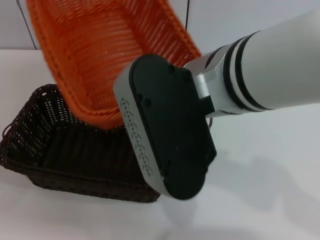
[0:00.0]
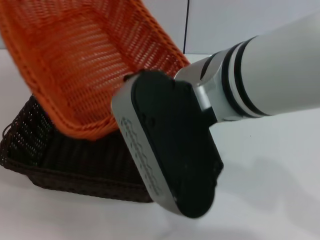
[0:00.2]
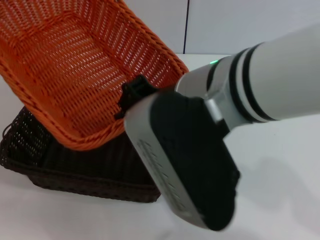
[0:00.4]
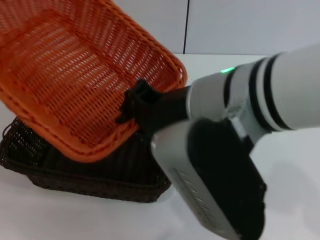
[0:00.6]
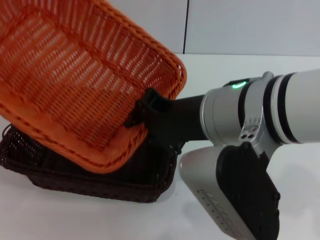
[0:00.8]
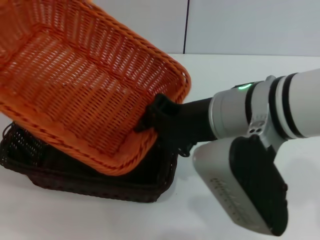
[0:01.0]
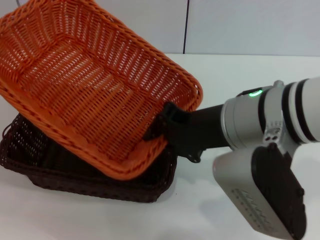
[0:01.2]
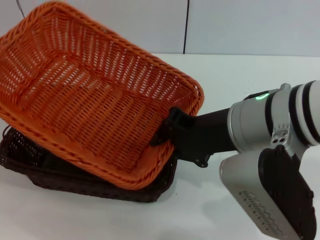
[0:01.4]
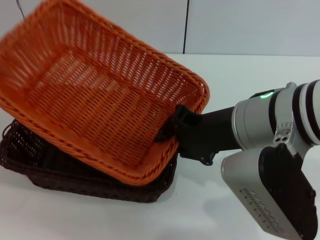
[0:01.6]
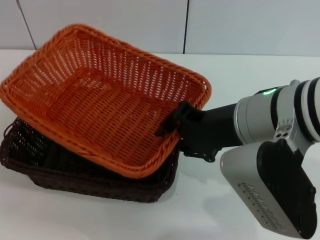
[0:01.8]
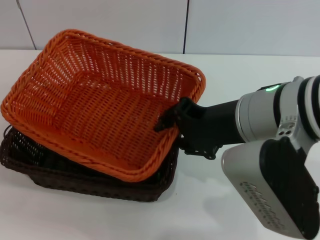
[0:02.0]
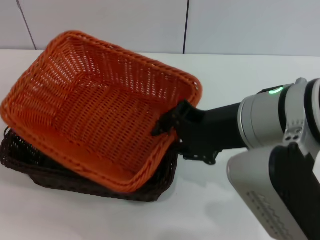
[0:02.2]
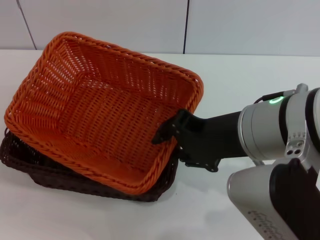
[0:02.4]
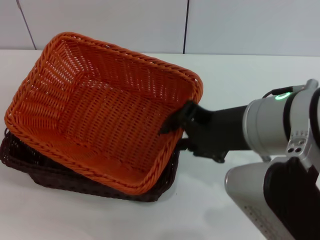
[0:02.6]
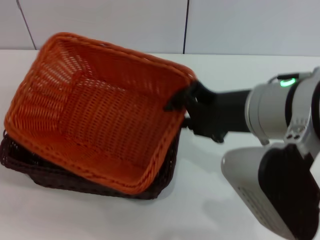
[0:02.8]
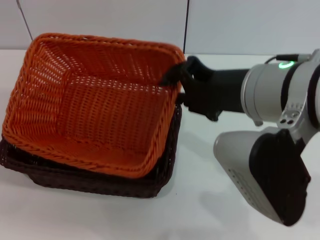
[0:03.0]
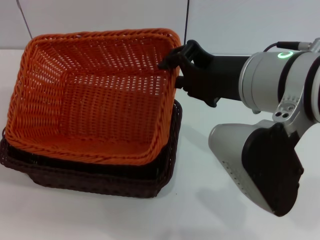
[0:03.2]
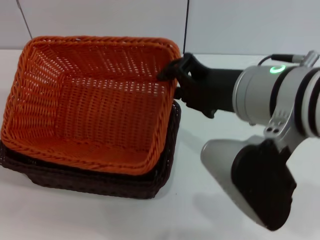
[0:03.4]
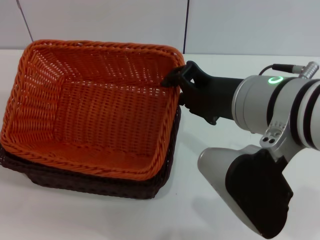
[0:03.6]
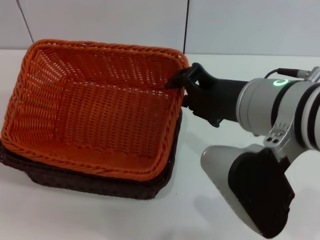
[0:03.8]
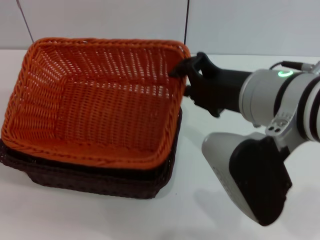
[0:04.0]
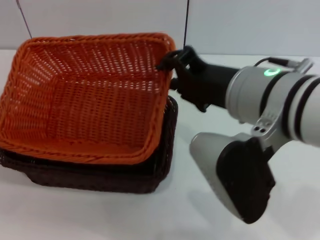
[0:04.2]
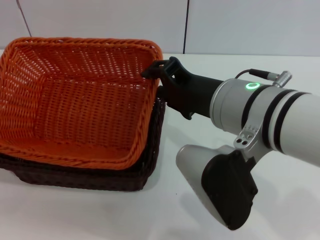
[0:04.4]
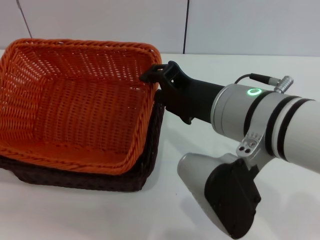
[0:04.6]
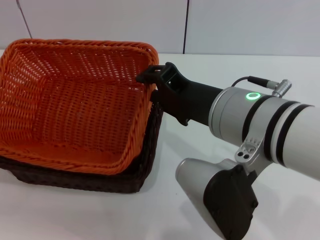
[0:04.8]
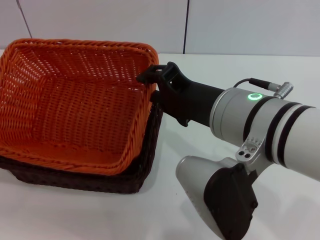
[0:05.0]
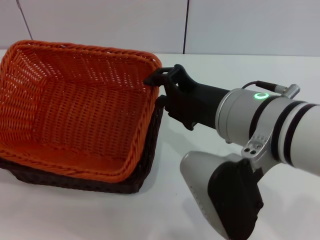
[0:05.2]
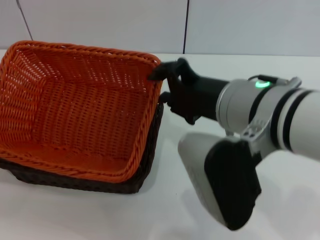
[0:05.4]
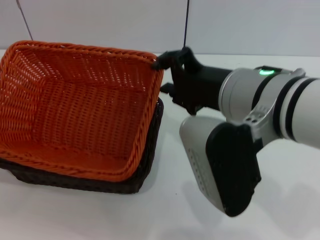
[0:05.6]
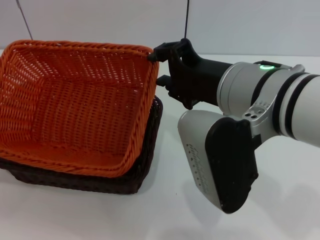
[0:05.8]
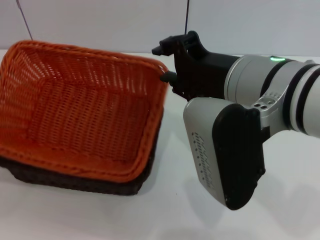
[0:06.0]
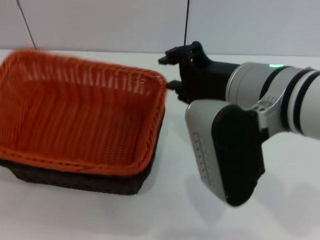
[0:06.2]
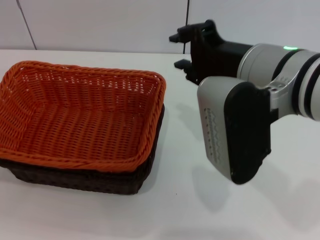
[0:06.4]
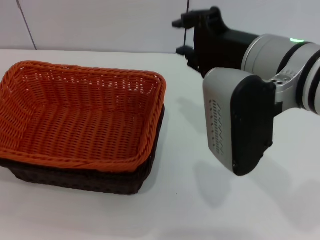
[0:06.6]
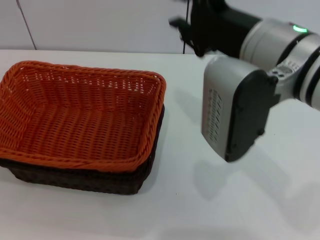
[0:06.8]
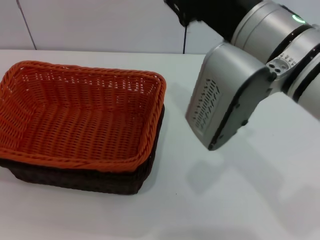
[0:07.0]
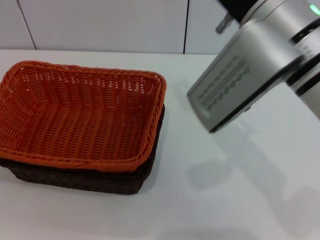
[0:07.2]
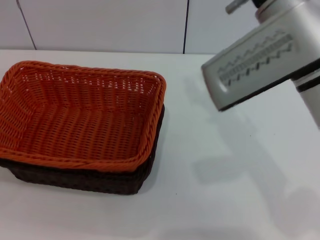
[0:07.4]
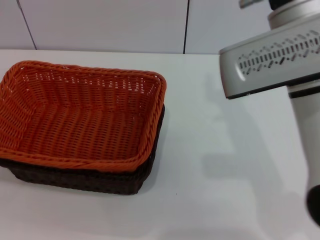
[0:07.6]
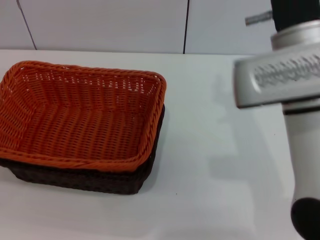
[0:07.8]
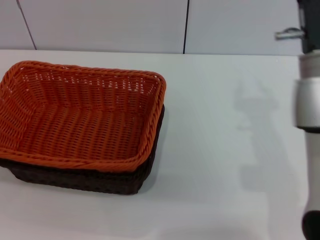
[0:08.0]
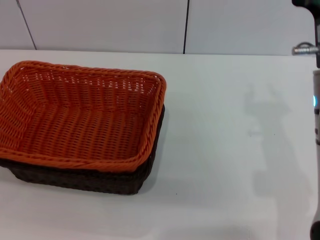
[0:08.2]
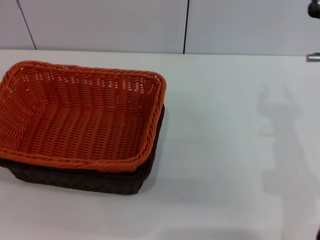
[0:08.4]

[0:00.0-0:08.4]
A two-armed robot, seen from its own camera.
Step, 0:00.0 to 0:06.2: Place the light basket on the dark basket with the right gripper.
0:00.0 to 0:01.4: The right gripper is displaced to the right and downward by some 10 cm.
0:07.0 to 0:08.4: The right gripper is displaced downward and to the right by approximately 15 cm.
